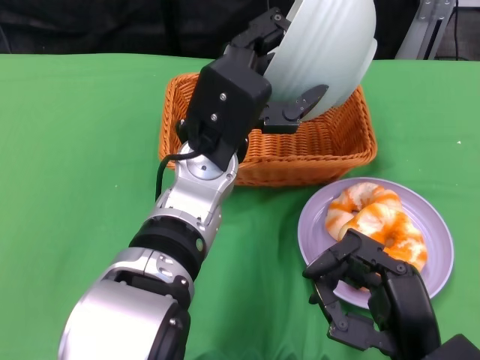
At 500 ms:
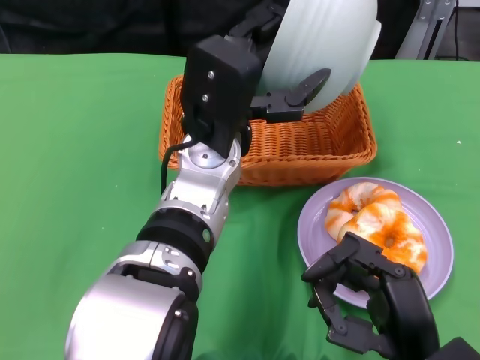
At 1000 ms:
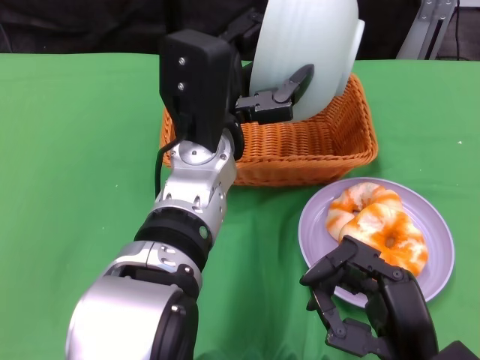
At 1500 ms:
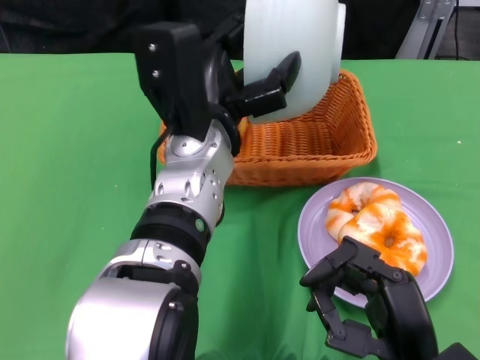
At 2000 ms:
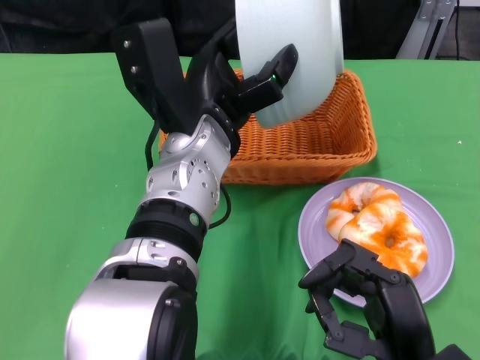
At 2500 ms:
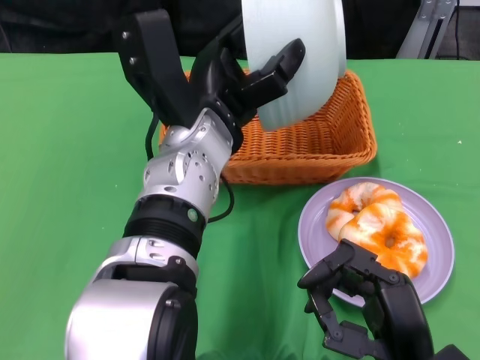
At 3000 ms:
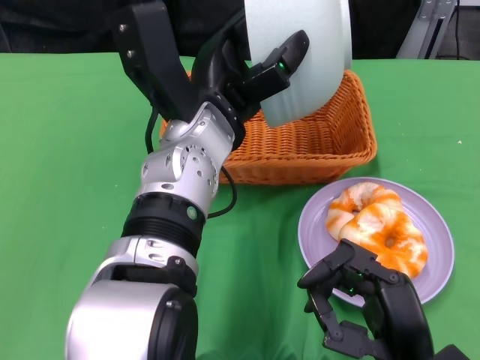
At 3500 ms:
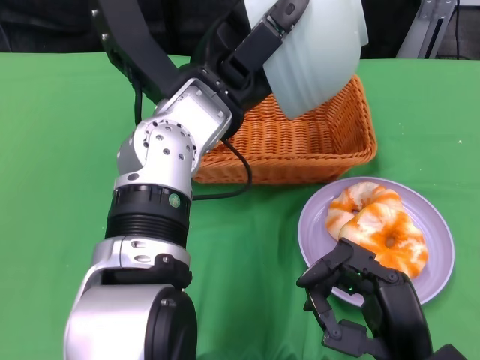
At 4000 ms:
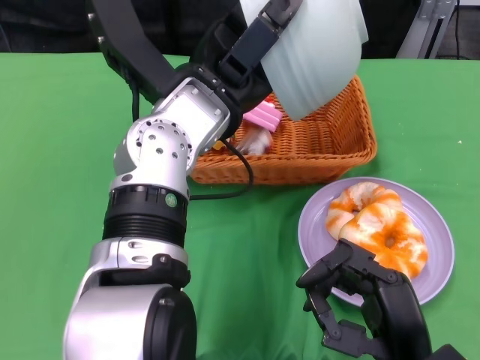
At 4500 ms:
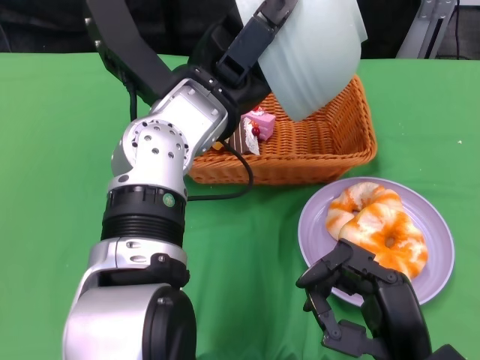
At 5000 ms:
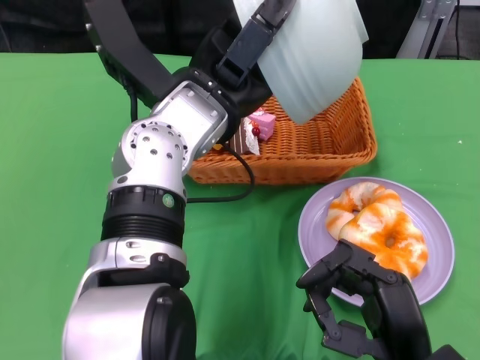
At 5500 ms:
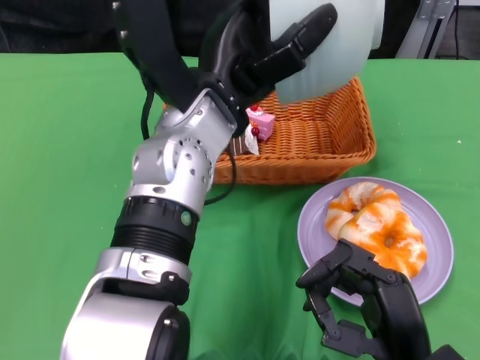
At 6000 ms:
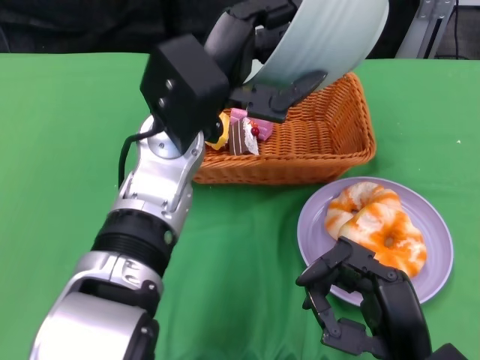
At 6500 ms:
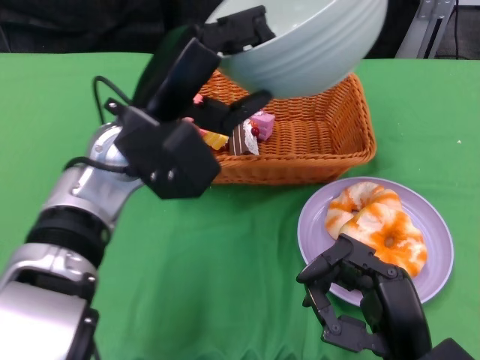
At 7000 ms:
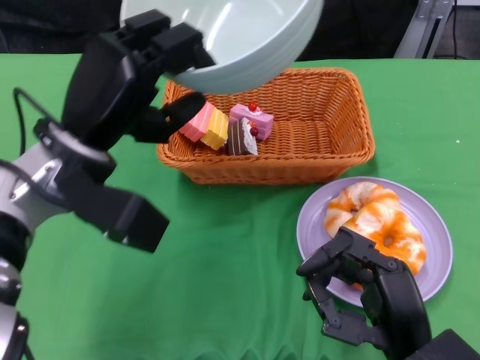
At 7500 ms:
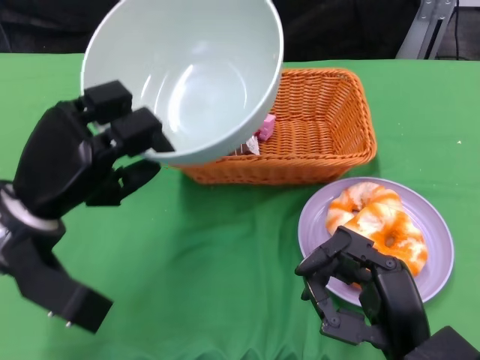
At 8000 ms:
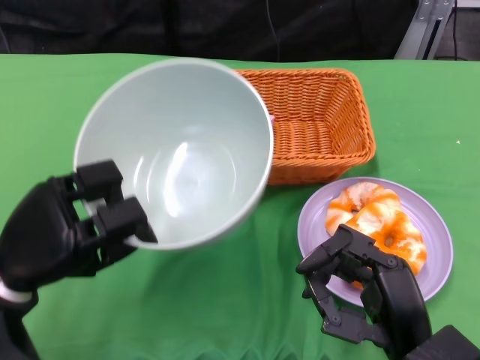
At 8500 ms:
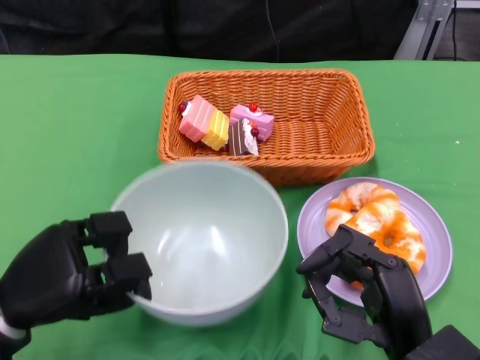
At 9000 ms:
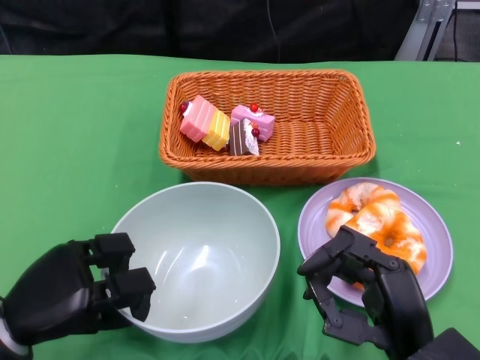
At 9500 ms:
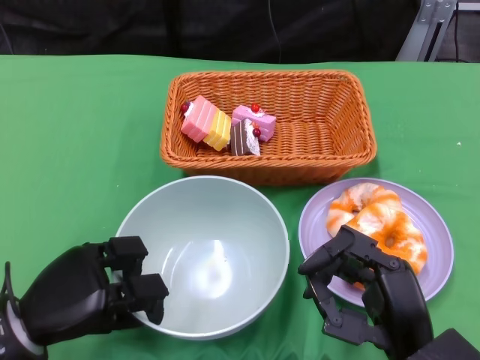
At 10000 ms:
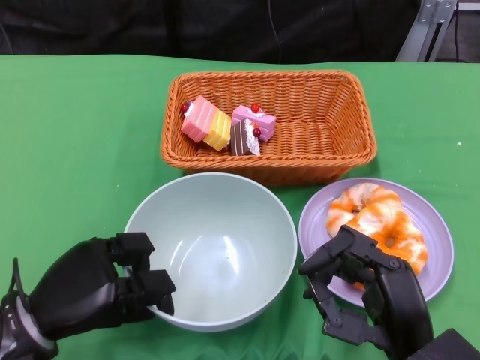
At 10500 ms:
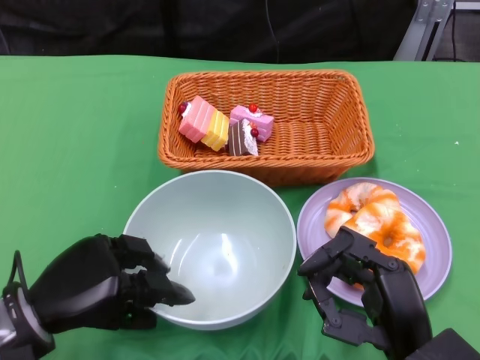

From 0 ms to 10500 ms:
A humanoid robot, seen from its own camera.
Step, from 0 ms to 6000 ms: Pour the cake into the basket with the left gripper.
From 4000 ms to 6500 ms: The left hand travels to the left by roughly 5 cm.
From 6500 ms to 8500 ms: The left hand shifts approximately 20 cm to the left, downward and backward.
From 8500 ms to 10500 ms: The hands move only a little.

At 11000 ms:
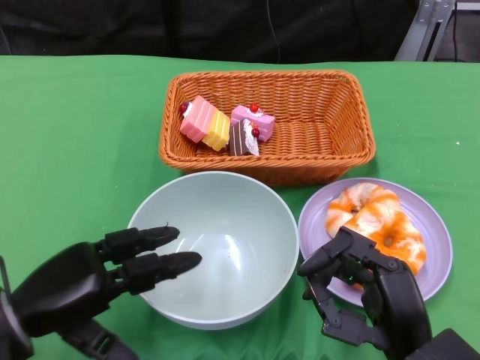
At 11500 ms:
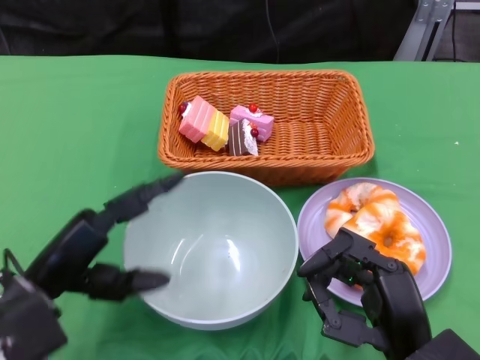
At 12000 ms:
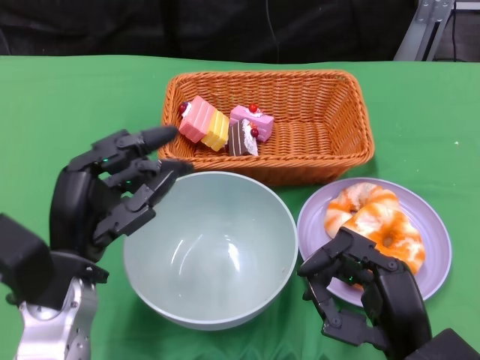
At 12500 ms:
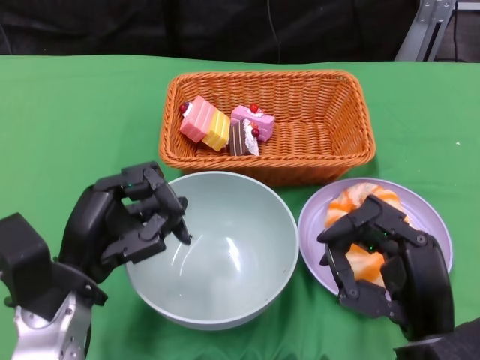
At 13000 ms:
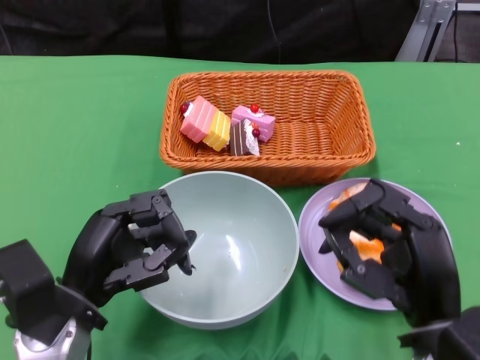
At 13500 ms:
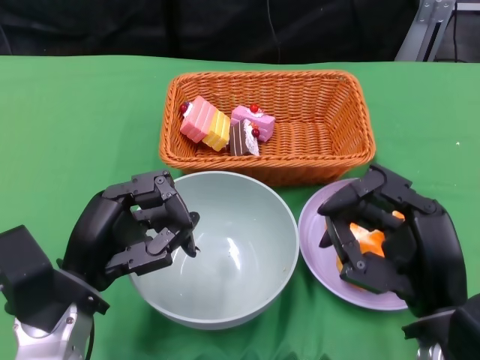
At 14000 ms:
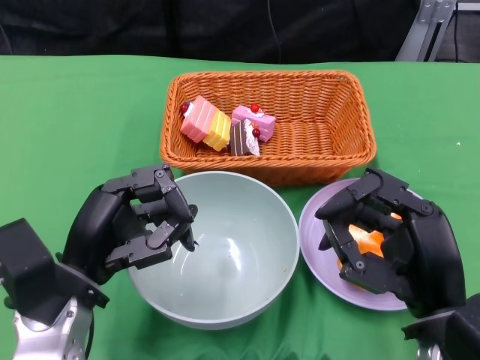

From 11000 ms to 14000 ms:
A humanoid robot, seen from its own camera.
From 11000 ms to 12500 ms: The left hand moves to the right, some 5 cm.
From 12500 ms to 14000 ms: There are only small adjustments of the hands.
